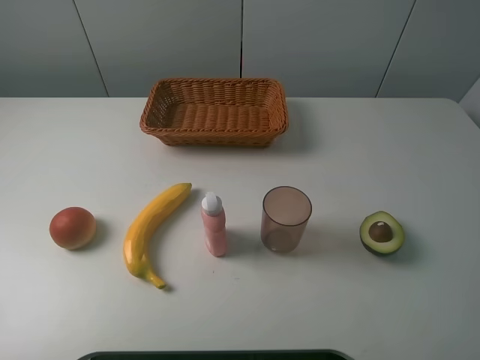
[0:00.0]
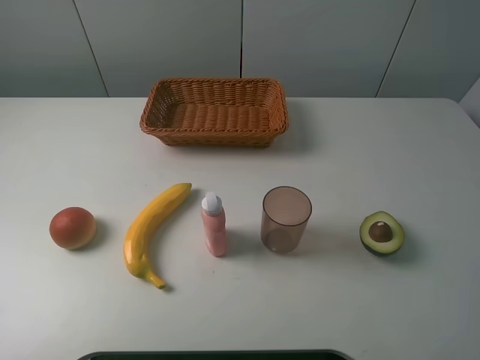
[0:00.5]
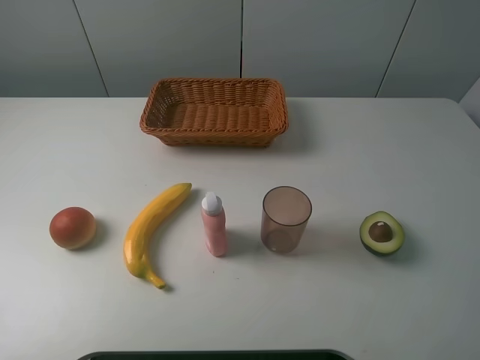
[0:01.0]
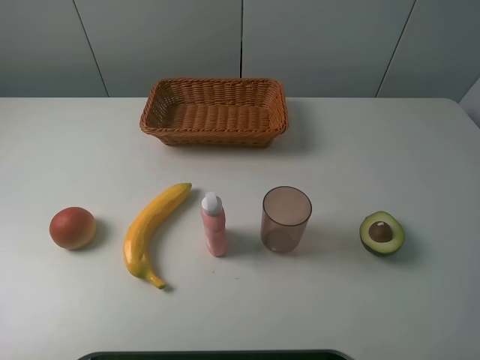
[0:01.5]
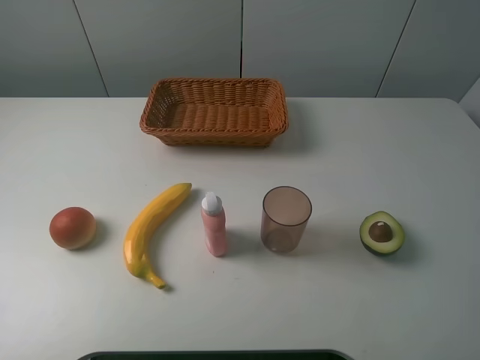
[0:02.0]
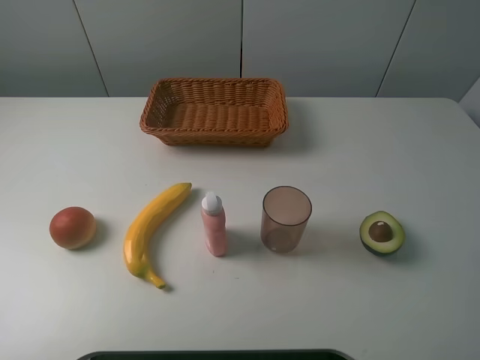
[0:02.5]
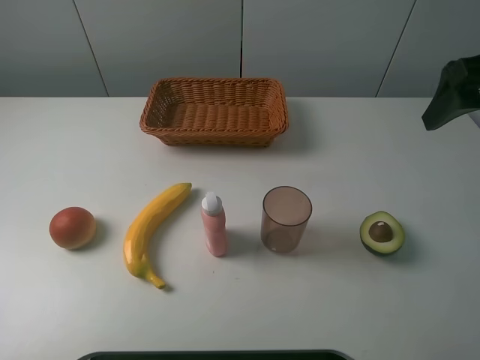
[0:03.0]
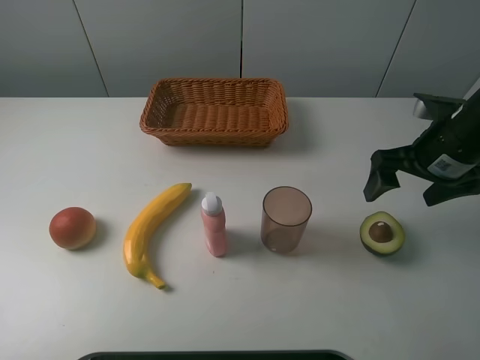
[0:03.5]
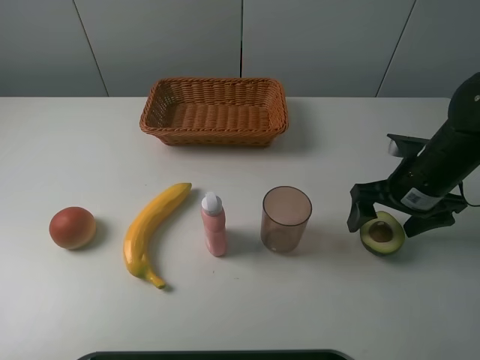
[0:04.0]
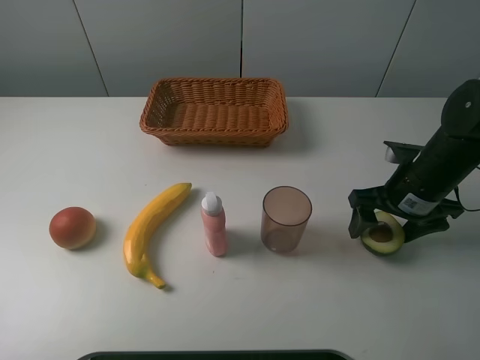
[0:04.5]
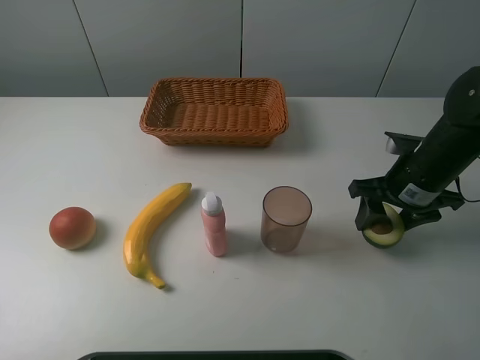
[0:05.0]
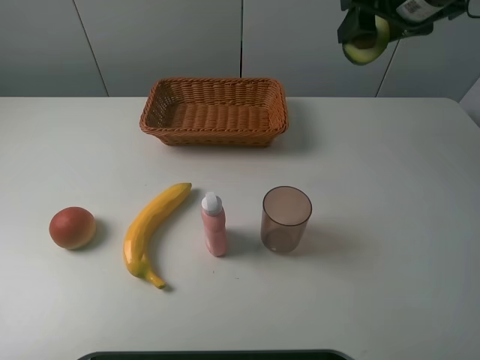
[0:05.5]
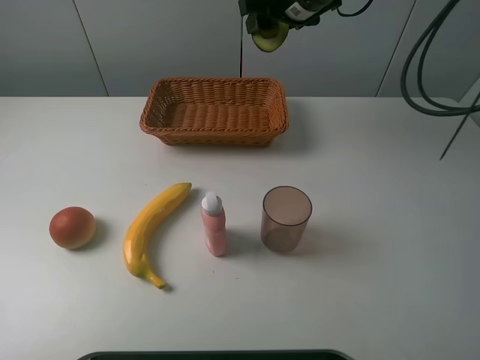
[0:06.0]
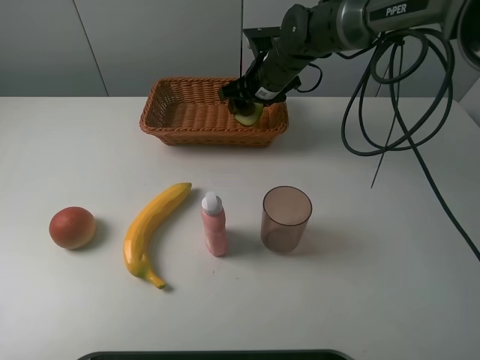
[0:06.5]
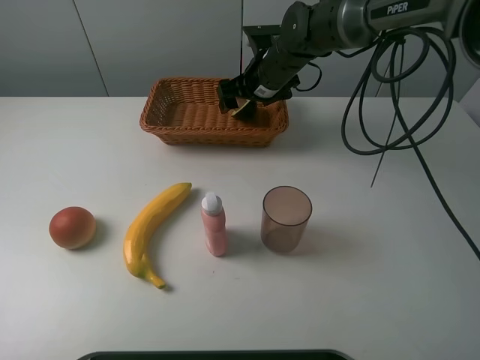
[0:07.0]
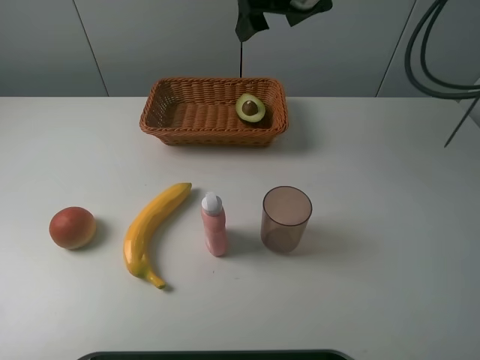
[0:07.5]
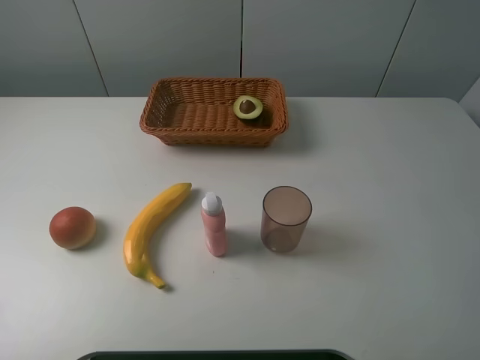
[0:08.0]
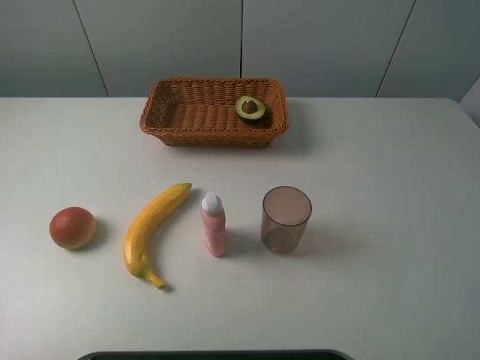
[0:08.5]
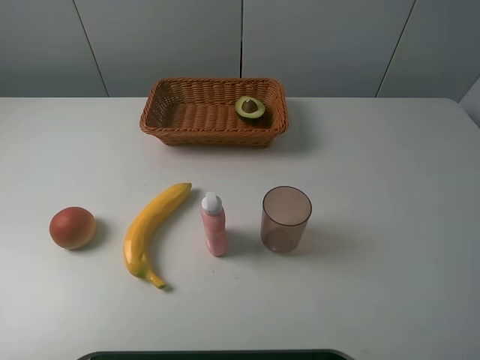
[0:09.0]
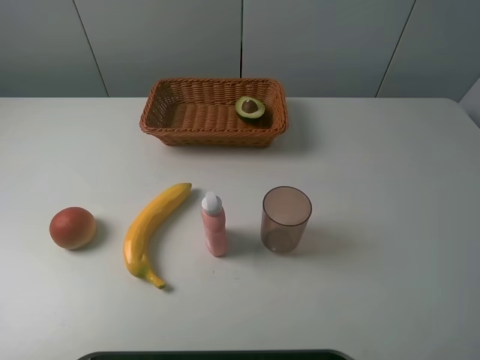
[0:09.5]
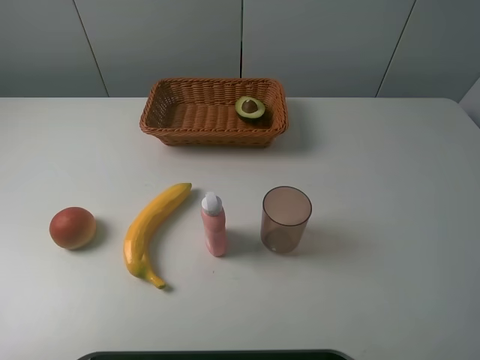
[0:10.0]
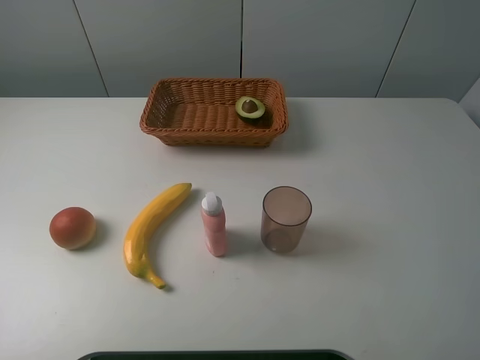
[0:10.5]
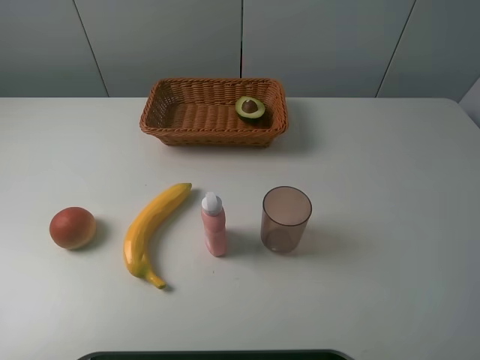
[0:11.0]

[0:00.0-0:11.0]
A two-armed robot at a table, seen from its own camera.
Task of the whole recording: randomly pick up an item from the table and put it in the basket.
Step, 0:00.0 to 0:04.5: Grasp the avocado with the right gripper.
Step, 0:05.0 to 0:07.0: Place the avocado into the basket with the right gripper.
0:00.0 to 0:02.0: Both grippers stay about where they are.
0:02.0 to 0:03.5: The right gripper heads forward and downward, covering approximately 30 cm.
0:03.5 to 0:05.5: The right gripper shifts about 20 cm upward, forward and to the left, and closes.
0:05.5 to 0:07.5: The right gripper shifts roughly 10 cm to the left, moves roughly 15 cm downward and comes back, and opens its fingers.
0:07.5 to 0:09.0: The right gripper shifts roughly 40 cm backward and to the right.
